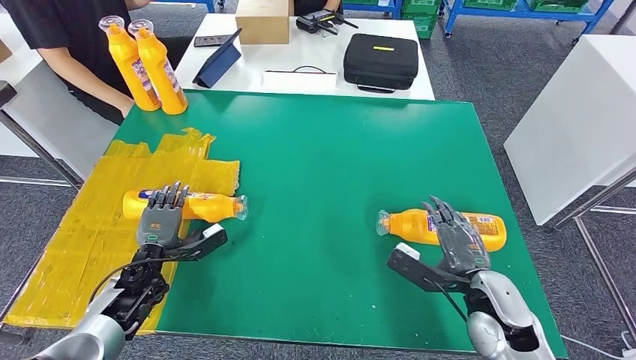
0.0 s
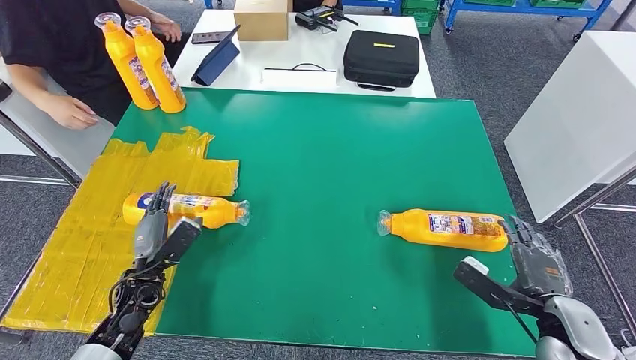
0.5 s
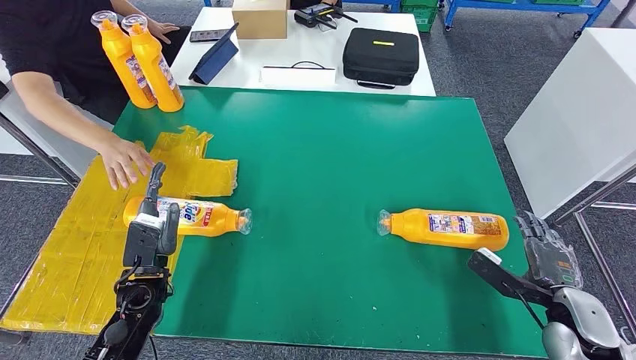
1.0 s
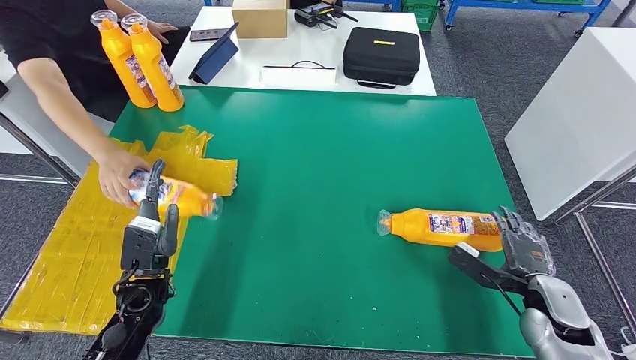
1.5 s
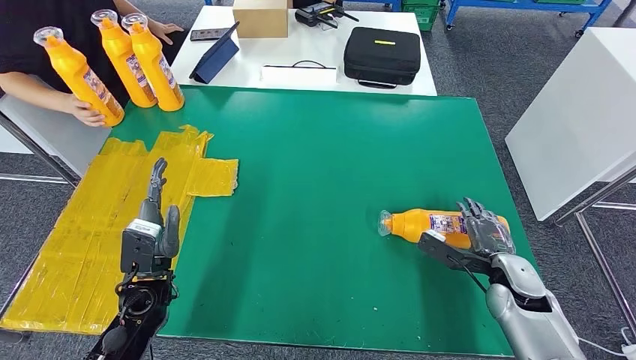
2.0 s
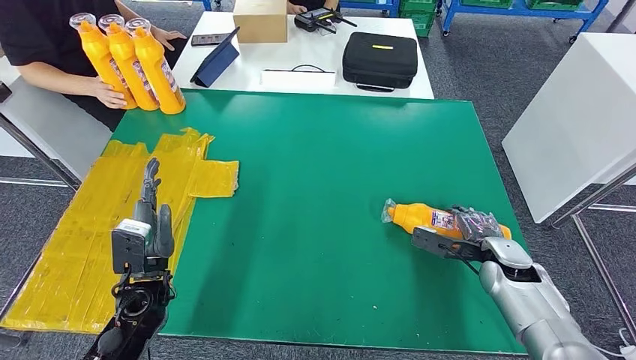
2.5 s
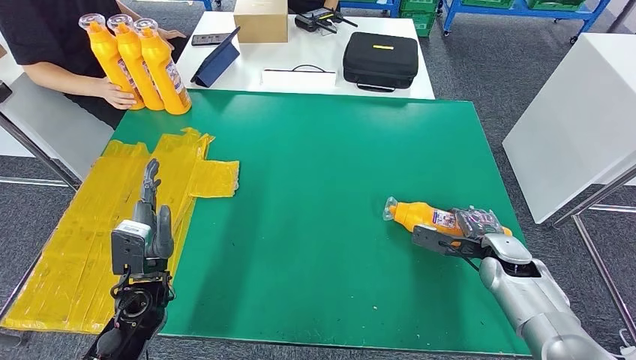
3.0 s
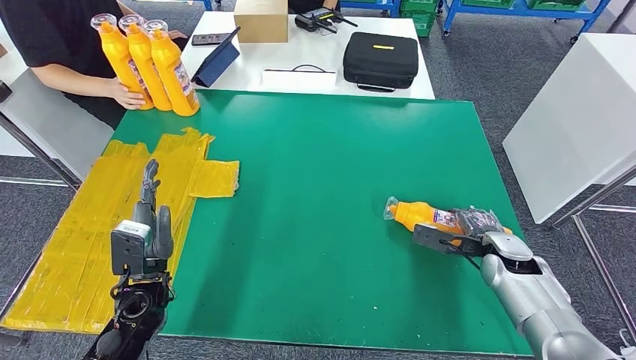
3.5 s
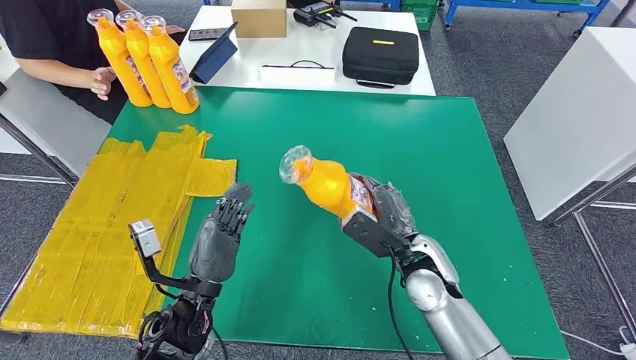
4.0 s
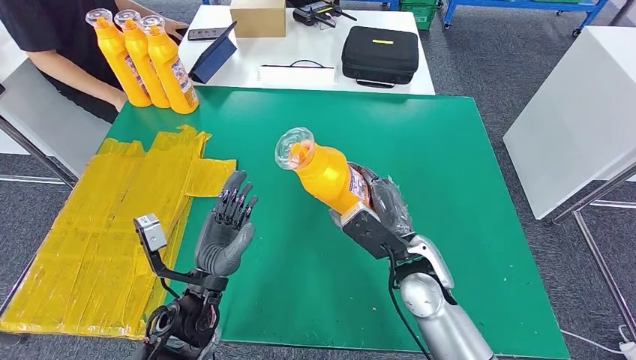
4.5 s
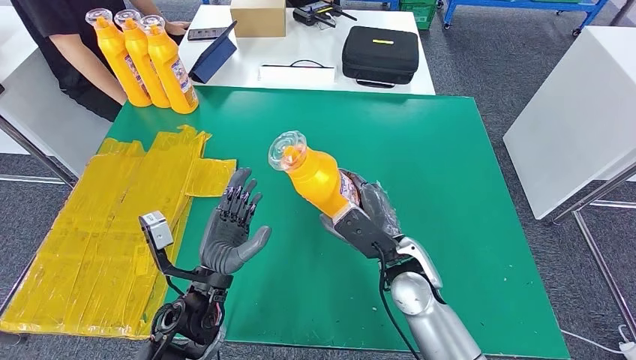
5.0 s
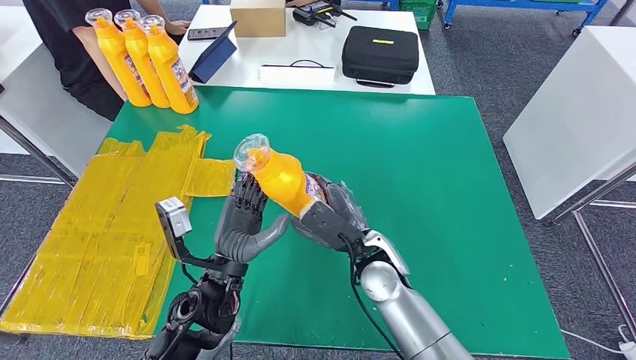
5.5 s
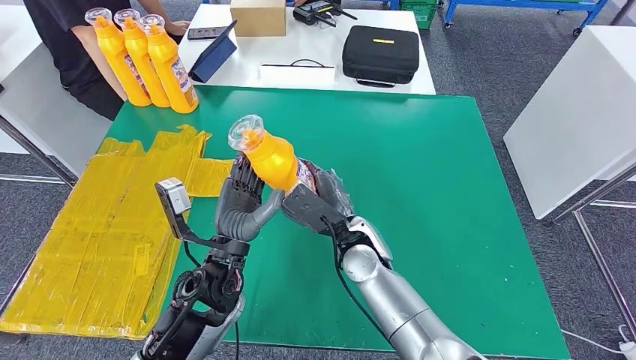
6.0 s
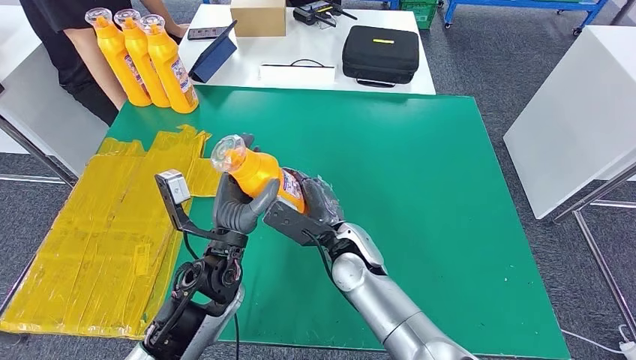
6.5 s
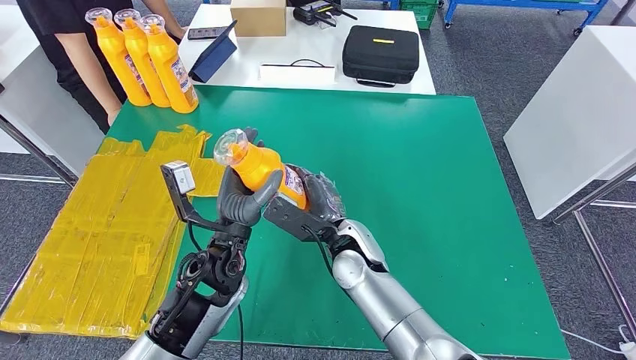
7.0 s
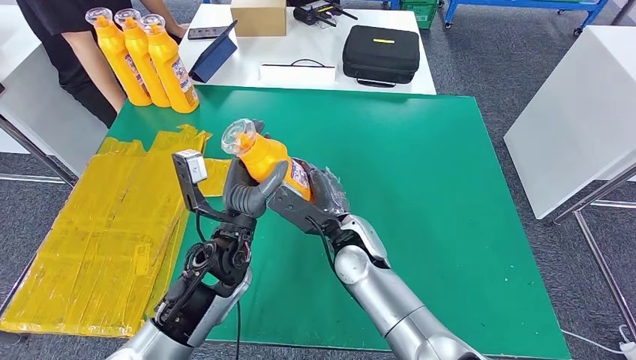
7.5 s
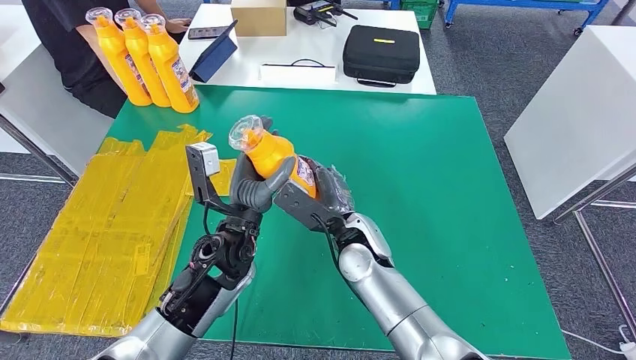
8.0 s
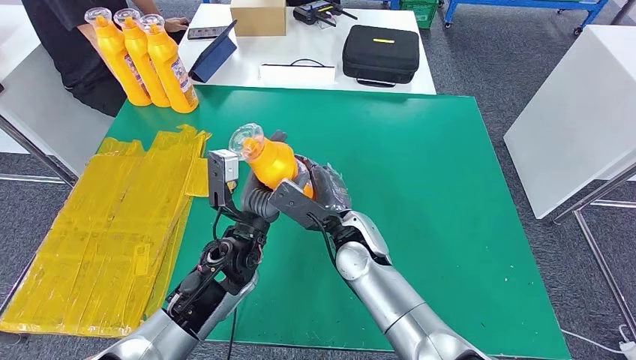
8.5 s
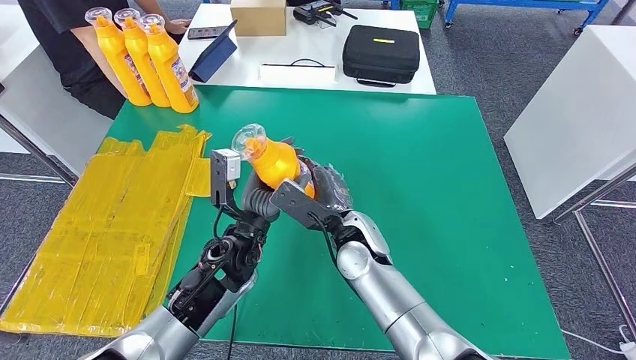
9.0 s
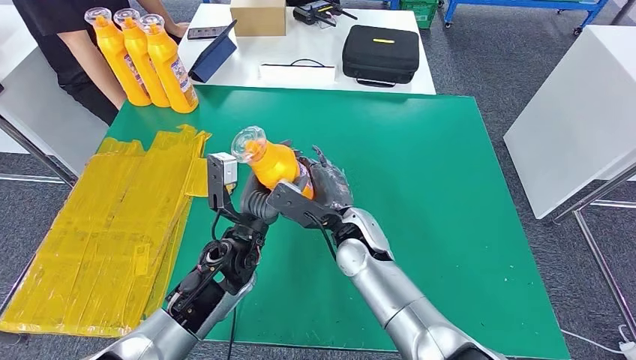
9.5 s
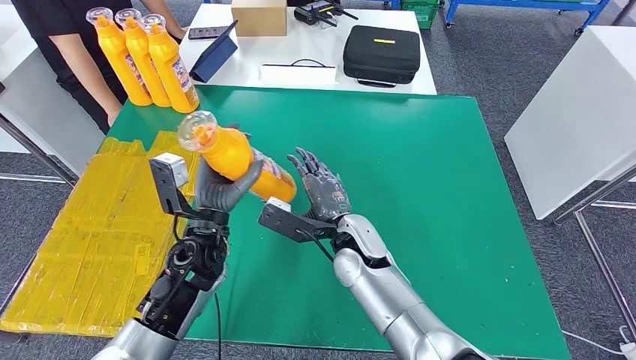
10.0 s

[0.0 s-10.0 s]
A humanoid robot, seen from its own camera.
Step, 0.0 to 2.0 s: Flip the bottle to face forward.
Step, 2.5 to 6.5 s: Pick up the bottle from the table.
6.0 to 8.0 s: The left hand moves some 5 cm.
8.0 to 10.0 s: The left hand moves to the left, roughly 5 cm.

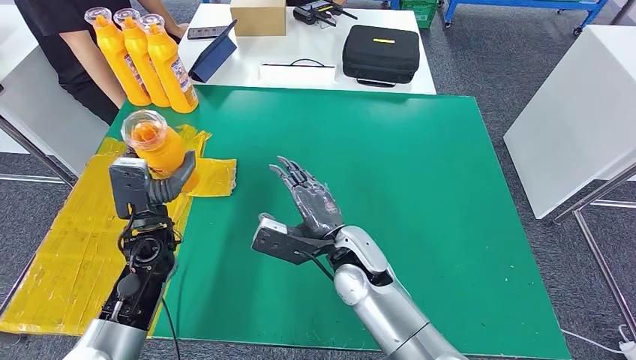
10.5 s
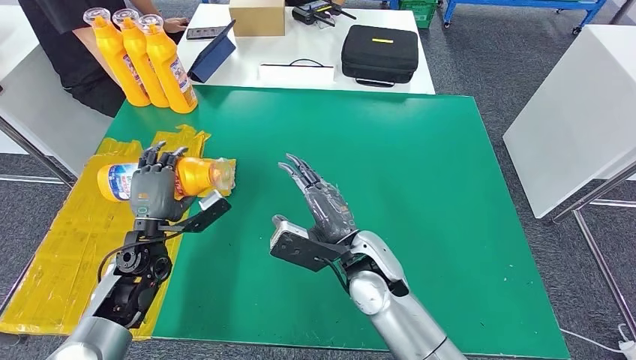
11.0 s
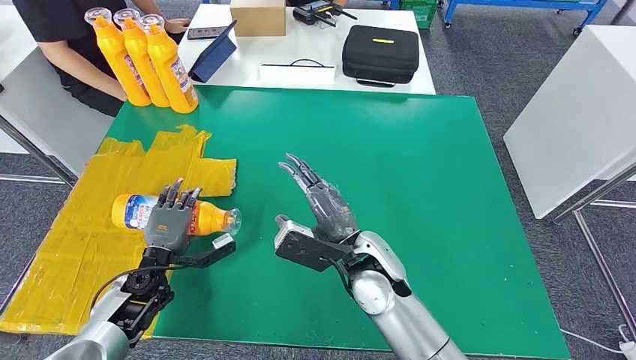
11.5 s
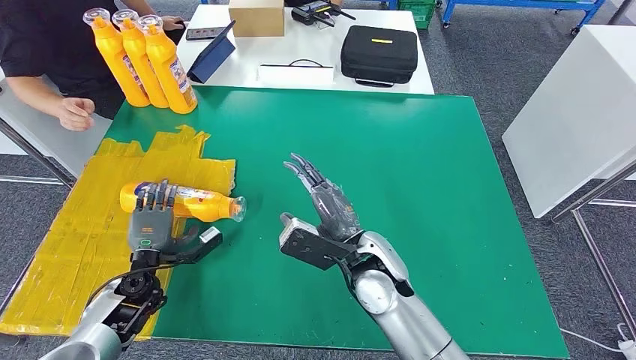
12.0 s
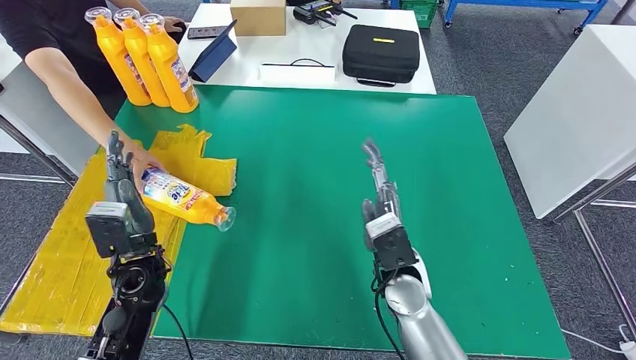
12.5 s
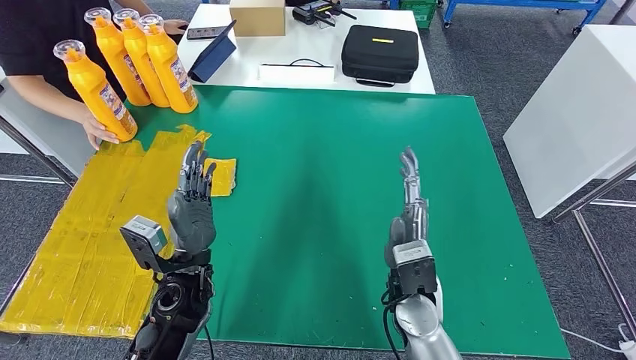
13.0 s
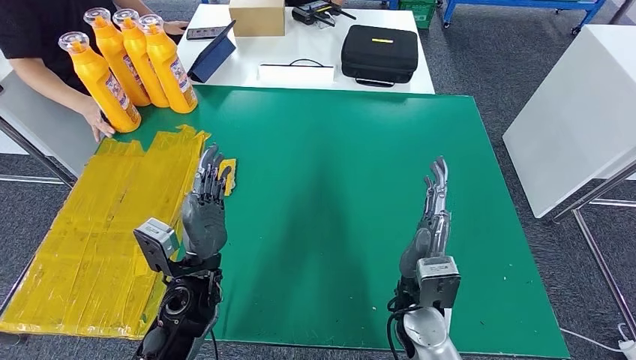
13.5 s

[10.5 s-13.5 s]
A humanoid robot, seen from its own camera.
Step, 10.5 to 13.5 s: Flip the bottle to face forward.
